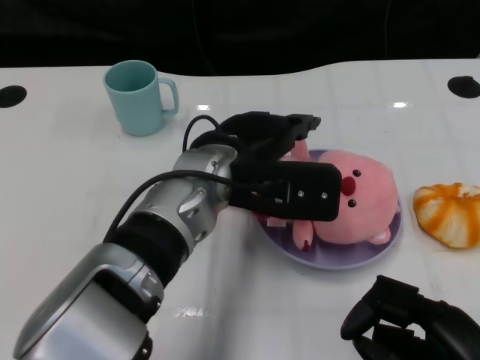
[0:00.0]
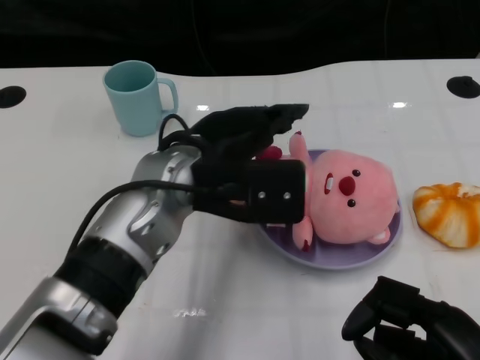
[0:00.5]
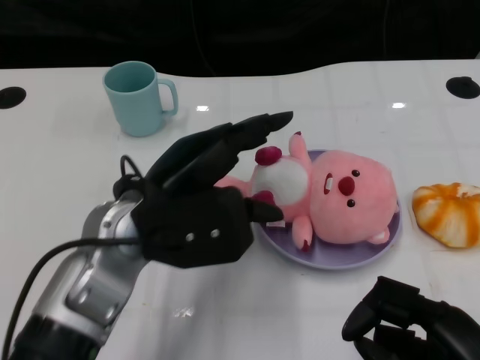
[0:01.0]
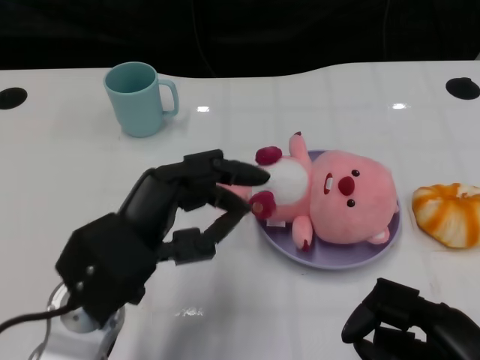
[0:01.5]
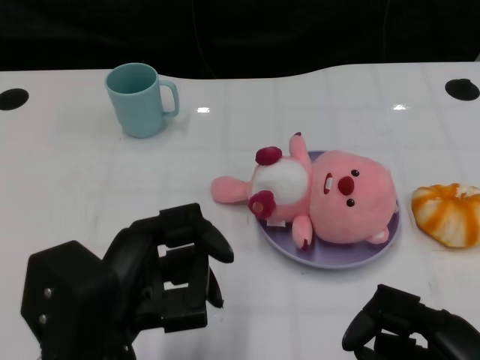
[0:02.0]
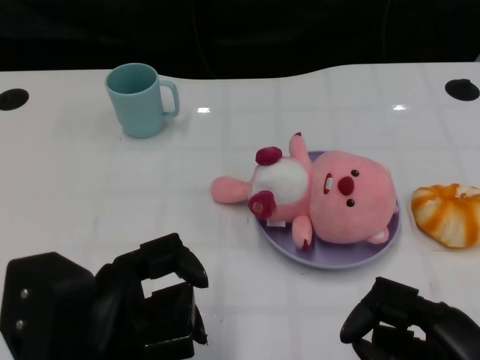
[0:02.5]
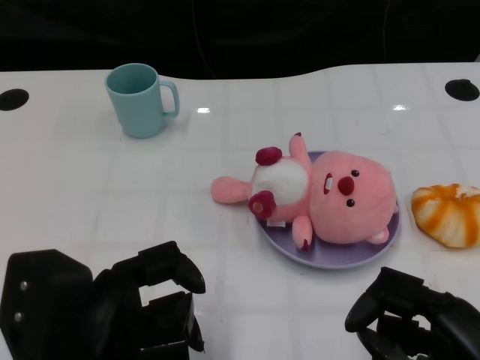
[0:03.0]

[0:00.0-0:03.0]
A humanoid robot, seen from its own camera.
Task of the whole recording: Pick up the doll on one side of the plate and place it into the plate.
0:00.0 to 0:01.5: The left hand heads to the left and backward, covering some 15 cm.
0:01.5 to 0:03.0: The left hand travels backward by roughly 10 cm.

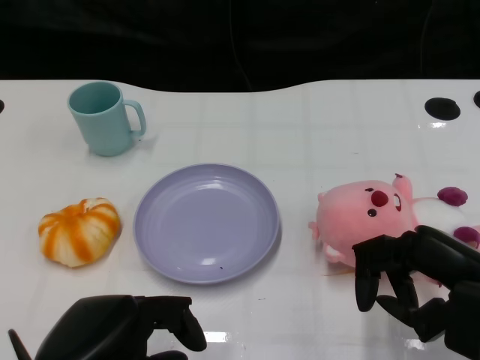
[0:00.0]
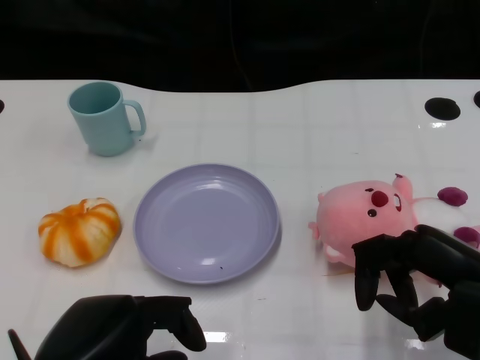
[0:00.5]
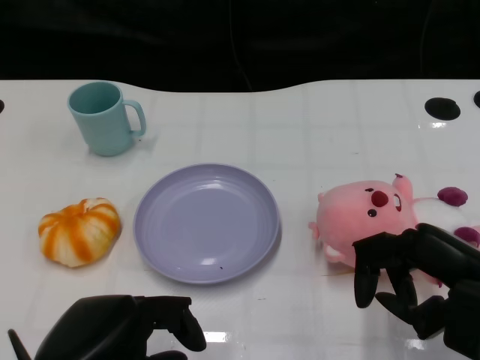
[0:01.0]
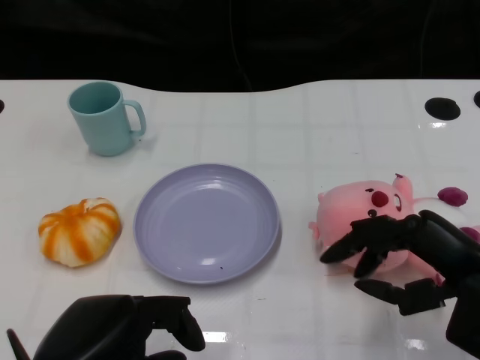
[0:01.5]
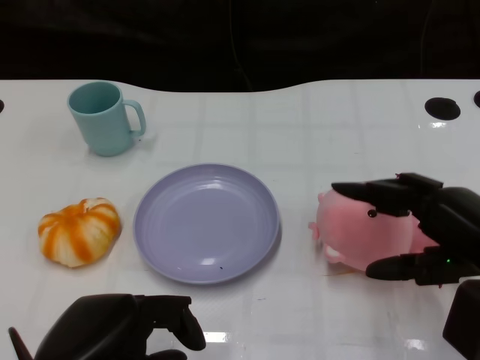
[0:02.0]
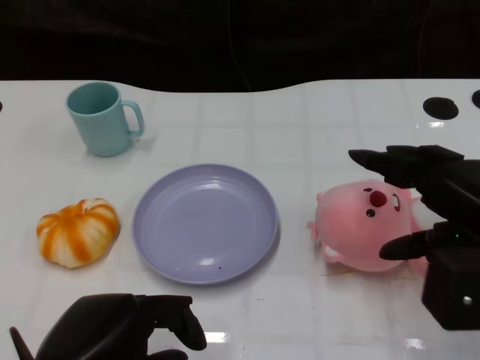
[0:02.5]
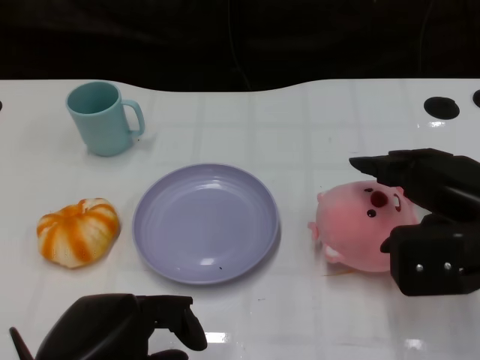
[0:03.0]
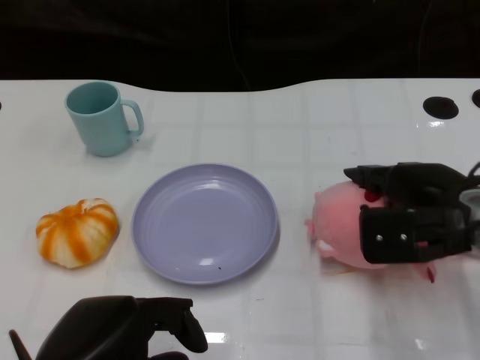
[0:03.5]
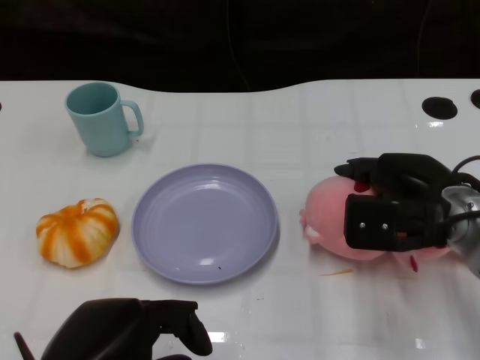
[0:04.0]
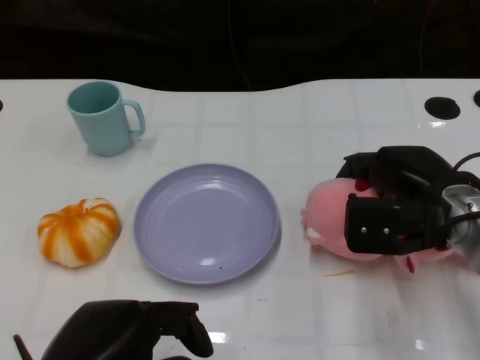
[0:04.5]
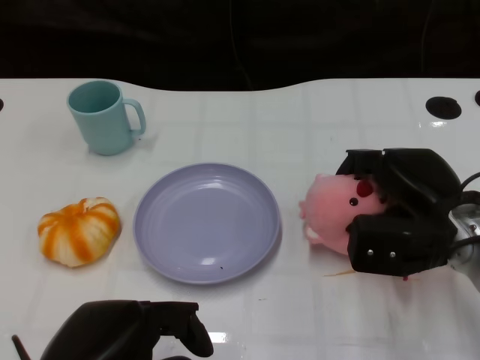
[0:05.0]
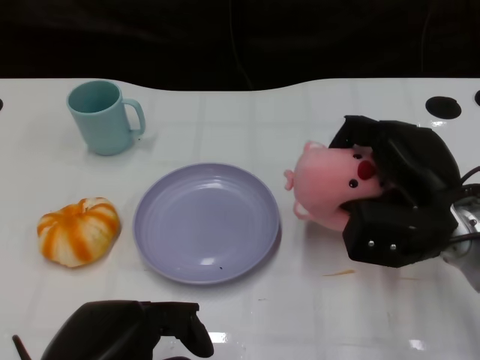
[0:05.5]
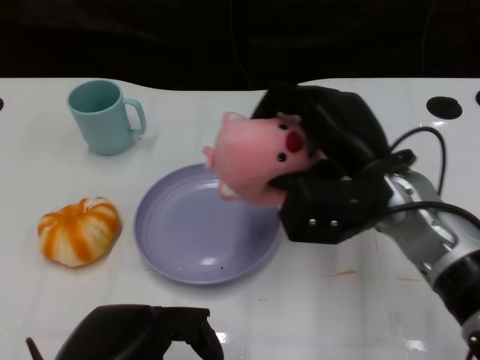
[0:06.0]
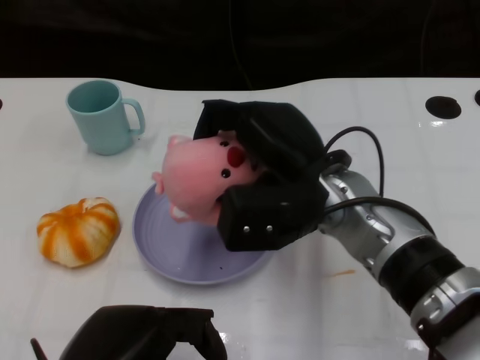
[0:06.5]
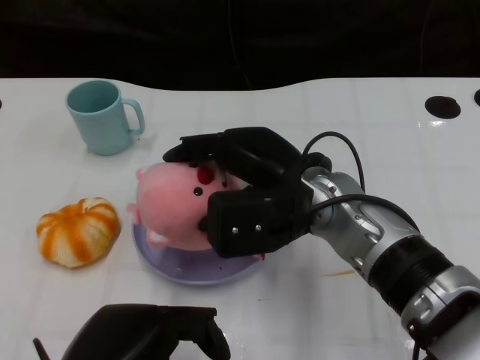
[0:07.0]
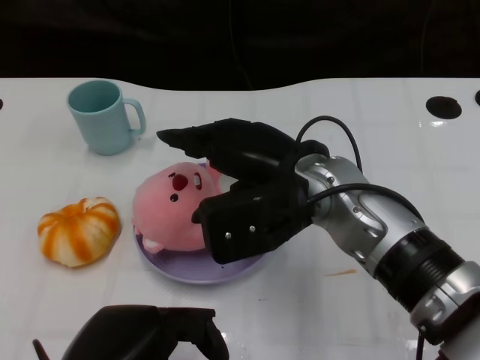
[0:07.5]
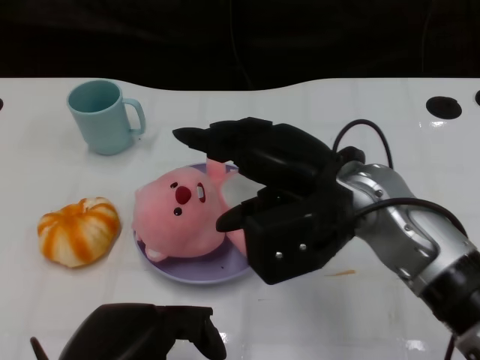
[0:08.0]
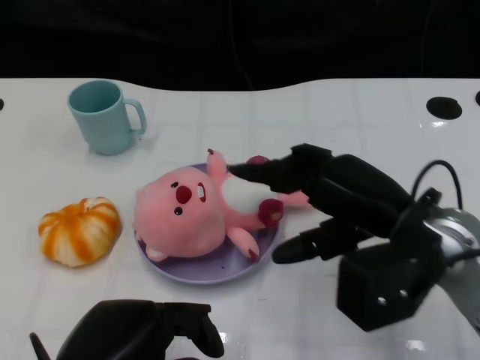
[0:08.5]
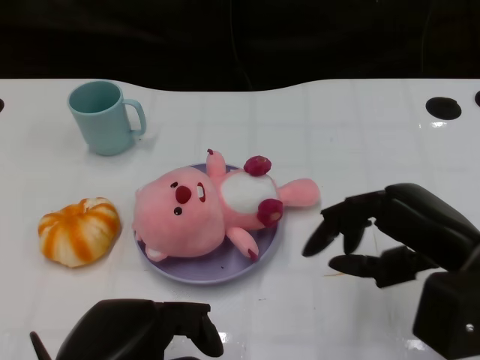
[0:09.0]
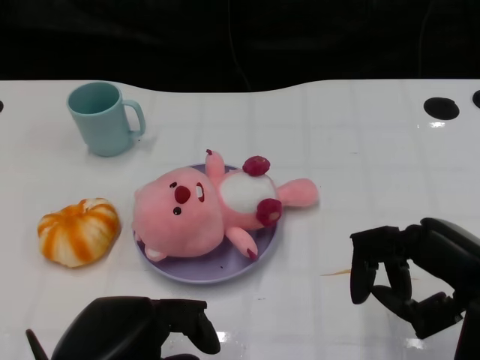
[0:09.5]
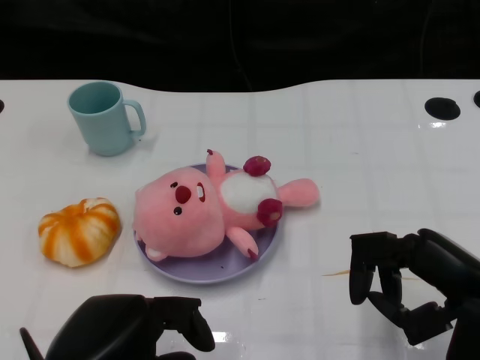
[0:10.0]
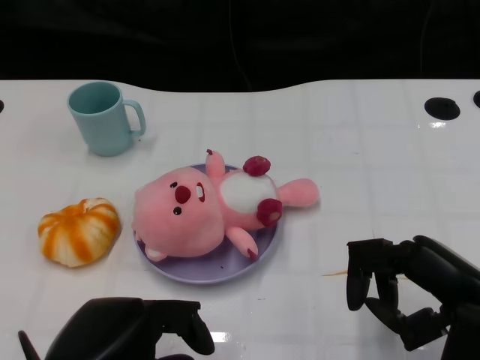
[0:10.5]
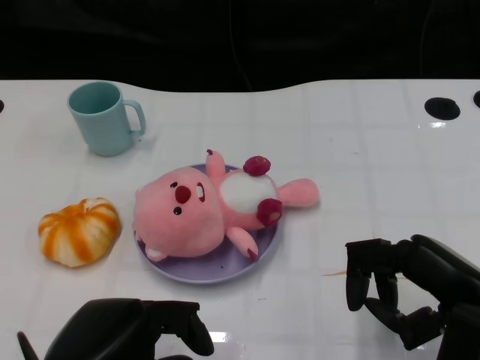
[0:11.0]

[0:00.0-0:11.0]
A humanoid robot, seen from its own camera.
Task of the whole recording: Pick up the doll on the other side of the plate and place it into the plate.
Step, 0:01.5 to 0:05.5: Grasp the pink doll with the right gripper.
Step, 0:06.5 to 0:08.0: Place the pink doll into the plate with the right gripper.
0:02.0 to 0:03.5: The right hand is displaced forward by approximately 10 cm.
0:05.5 to 0:07.5: The right hand heads to the left and upward, covering roughly 15 cm.
0:07.5 to 0:09.0: The right hand goes roughly 15 cm to the right and backward.
0:09.0 to 0:11.0: The hands stay close to where they were, moving slightly.
